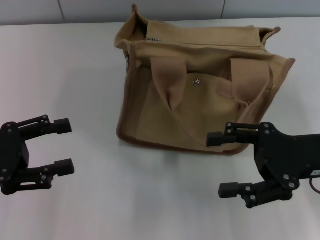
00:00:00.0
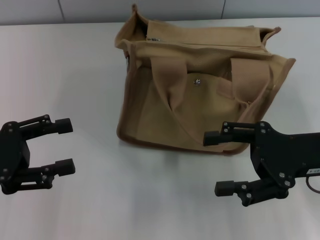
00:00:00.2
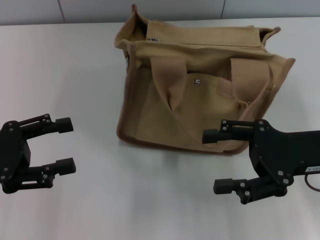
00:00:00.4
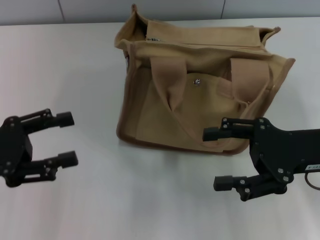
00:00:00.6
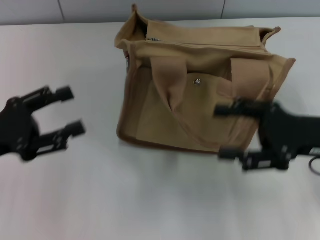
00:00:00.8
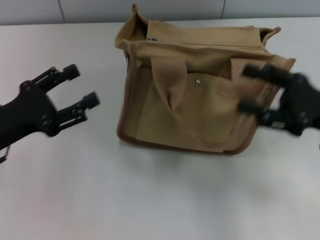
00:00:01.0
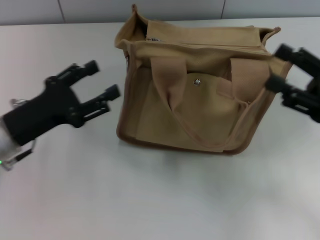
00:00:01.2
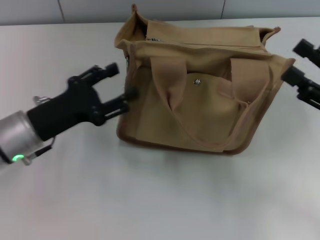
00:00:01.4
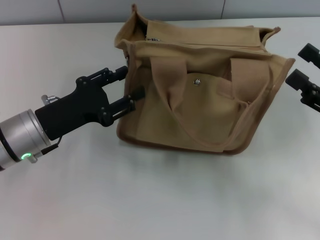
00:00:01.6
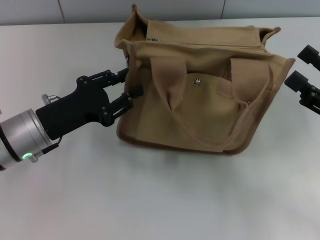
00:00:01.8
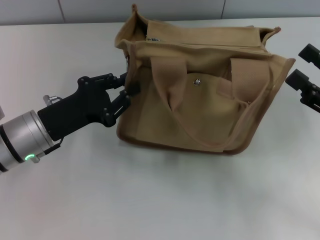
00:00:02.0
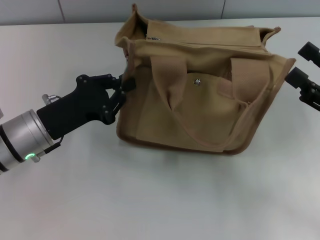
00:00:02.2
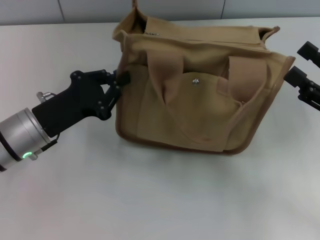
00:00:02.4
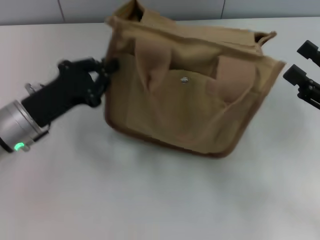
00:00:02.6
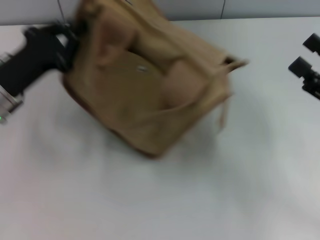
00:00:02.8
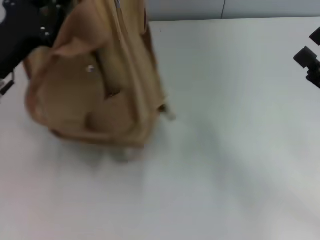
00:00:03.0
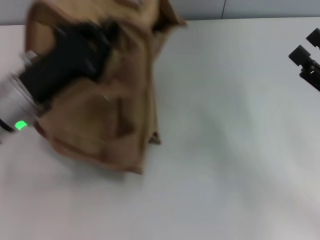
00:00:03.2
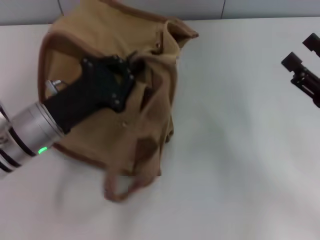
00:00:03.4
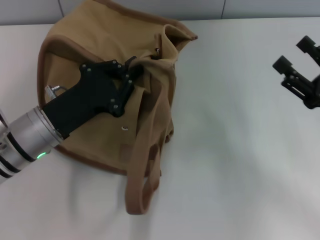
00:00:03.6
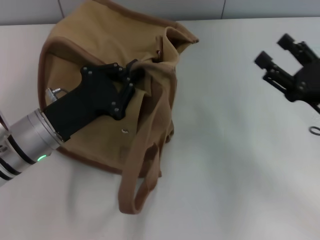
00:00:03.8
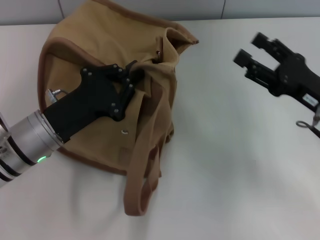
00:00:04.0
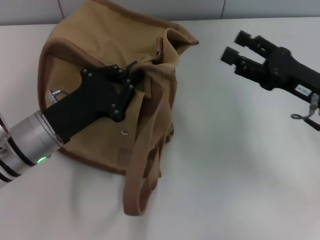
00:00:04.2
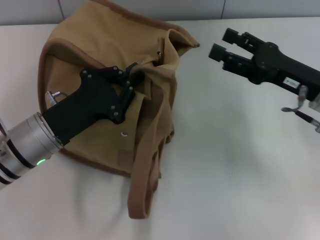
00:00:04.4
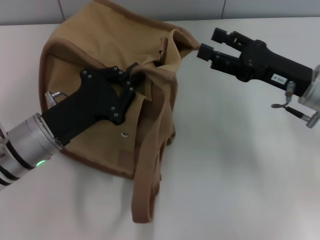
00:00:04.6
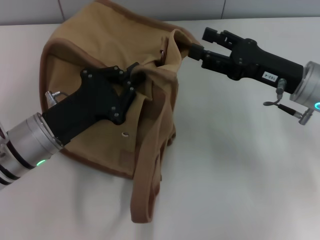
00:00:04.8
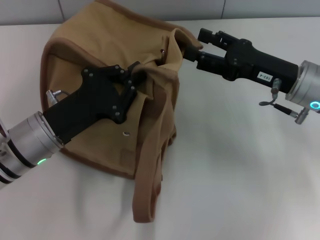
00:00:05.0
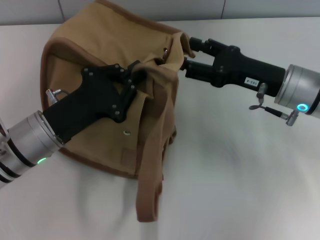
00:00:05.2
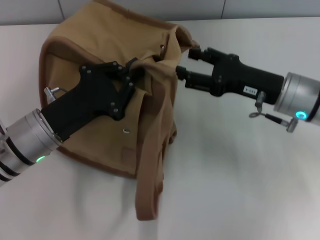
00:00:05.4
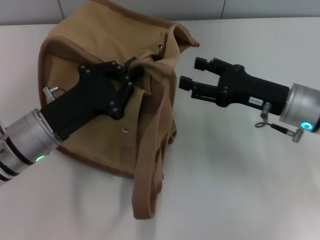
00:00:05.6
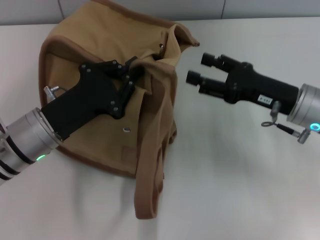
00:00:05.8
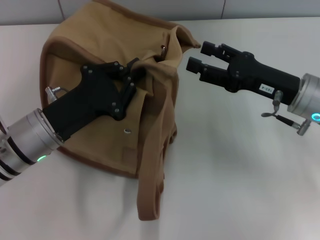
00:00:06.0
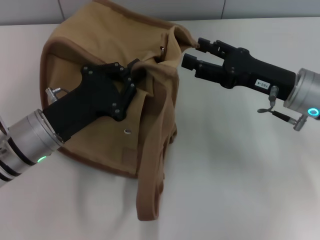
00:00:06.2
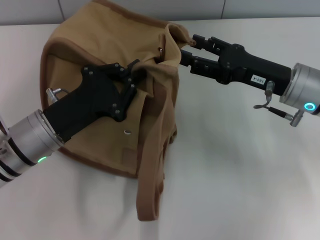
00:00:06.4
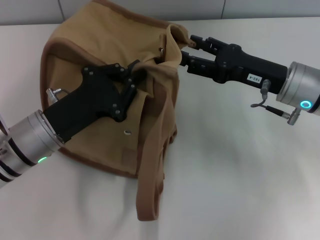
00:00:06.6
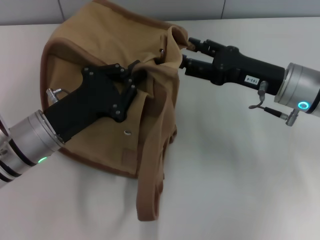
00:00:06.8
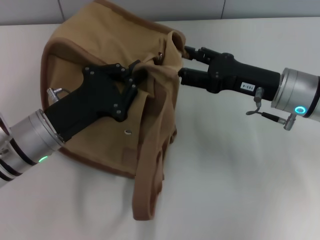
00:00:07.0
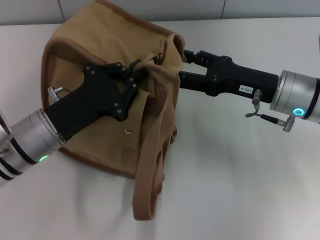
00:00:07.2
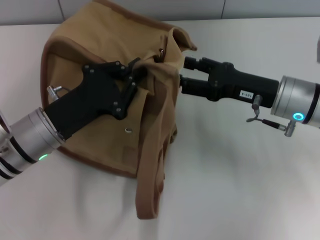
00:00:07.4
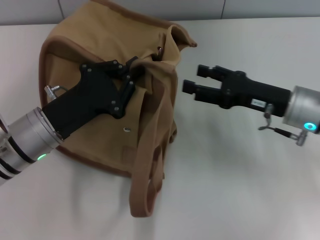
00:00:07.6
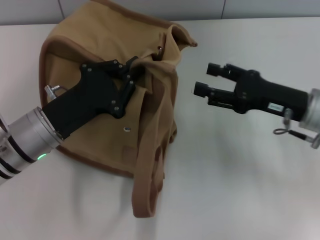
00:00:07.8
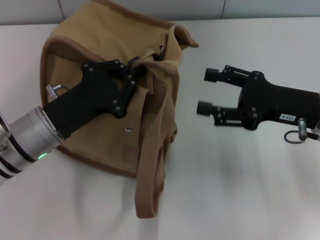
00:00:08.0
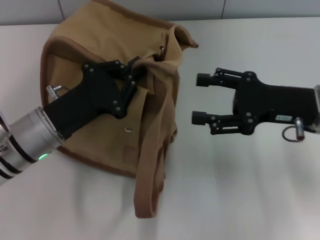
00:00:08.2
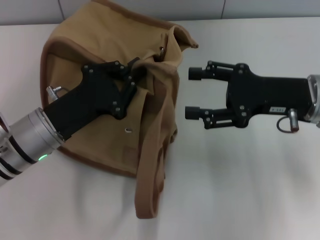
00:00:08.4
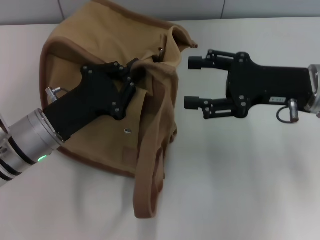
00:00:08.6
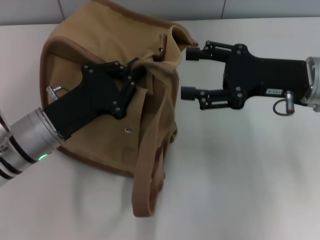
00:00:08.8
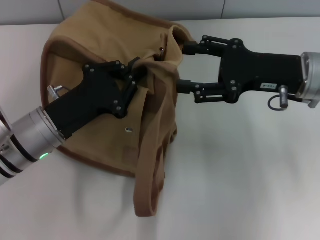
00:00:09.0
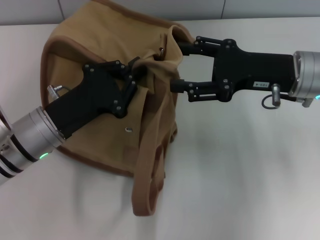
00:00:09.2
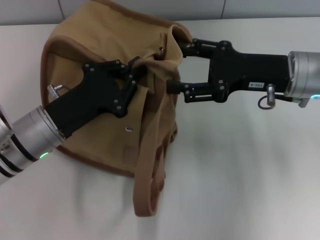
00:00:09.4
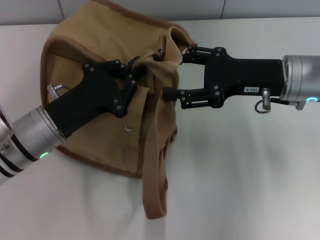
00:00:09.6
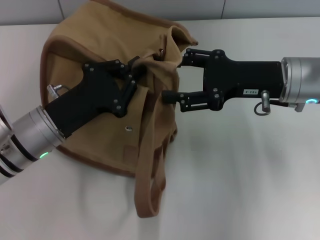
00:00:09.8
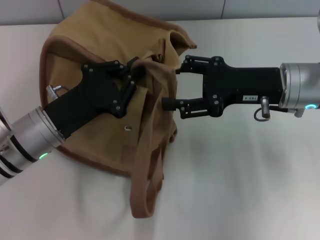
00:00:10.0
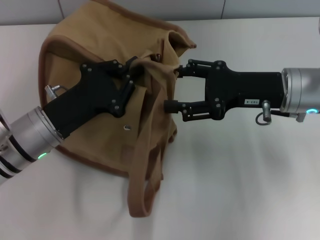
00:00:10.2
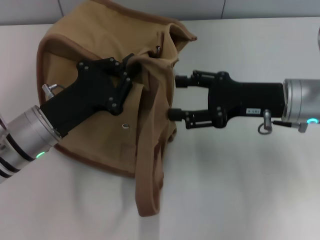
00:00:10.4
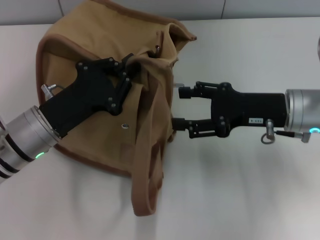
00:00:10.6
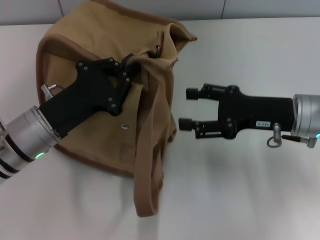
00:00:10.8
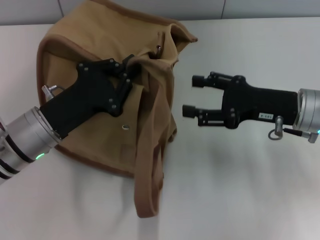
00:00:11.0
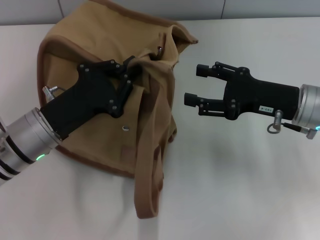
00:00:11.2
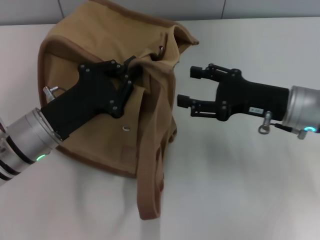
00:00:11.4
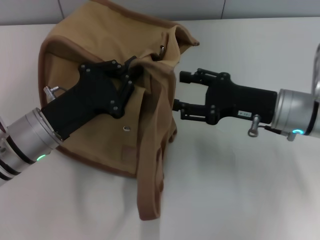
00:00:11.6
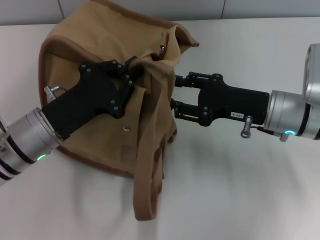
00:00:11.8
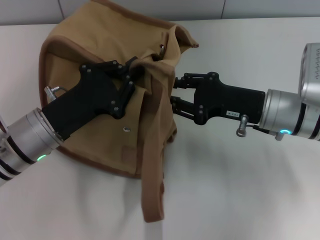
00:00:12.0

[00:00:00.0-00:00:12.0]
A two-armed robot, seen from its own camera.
00:00:00.0 to 00:00:01.6: The right gripper shifts about 5 cm to the right. The left gripper goes approximately 10 cm to the right and forward.
00:00:01.6 to 00:00:03.0: The left gripper goes about 5 cm upward, and closes.
00:00:03.0 to 00:00:04.4: The left gripper heads to the right and downward, covering roughly 10 cm, while the right gripper moves forward and to the left, approximately 10 cm.
00:00:04.4 to 00:00:07.6: The grippers stay close to where they were, moving slightly.
00:00:07.6 to 00:00:09.0: The right gripper moves upward, some 5 cm.
00:00:09.0 to 00:00:10.4: The grippers move only a little.
00:00:10.4 to 00:00:12.0: The grippers stay close to where they were, moving slightly.

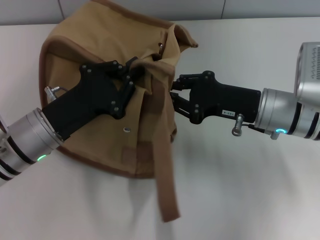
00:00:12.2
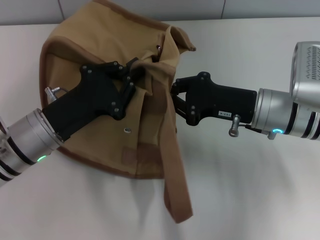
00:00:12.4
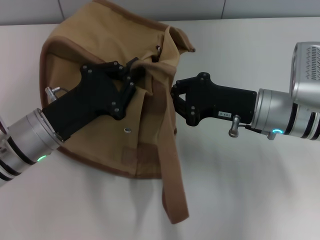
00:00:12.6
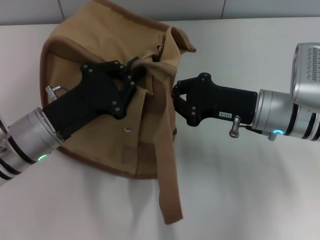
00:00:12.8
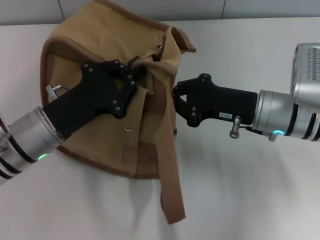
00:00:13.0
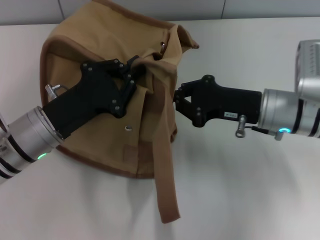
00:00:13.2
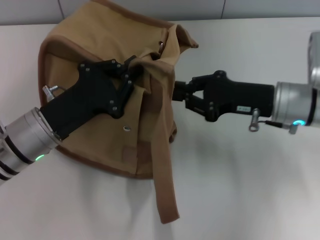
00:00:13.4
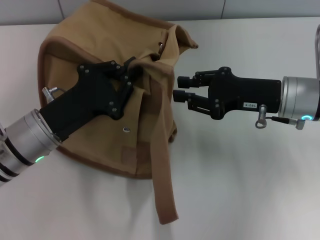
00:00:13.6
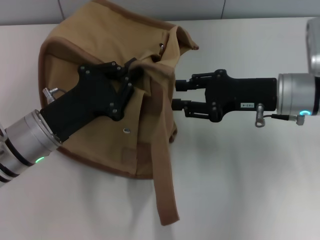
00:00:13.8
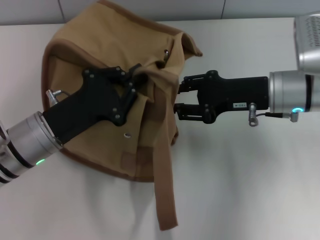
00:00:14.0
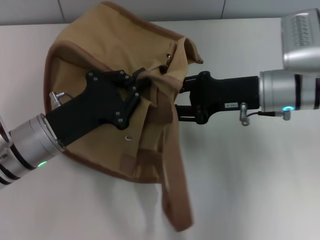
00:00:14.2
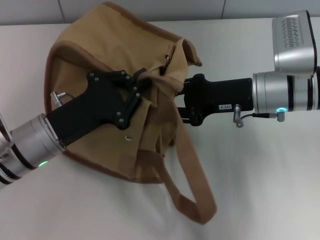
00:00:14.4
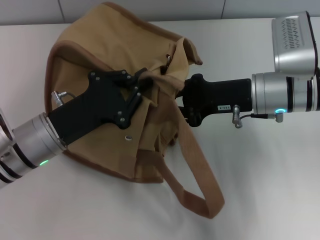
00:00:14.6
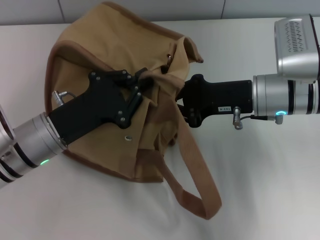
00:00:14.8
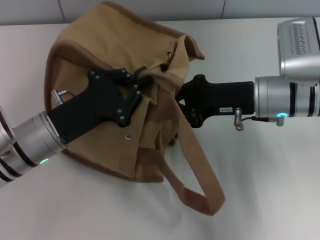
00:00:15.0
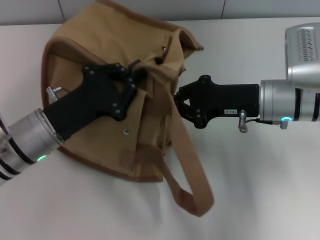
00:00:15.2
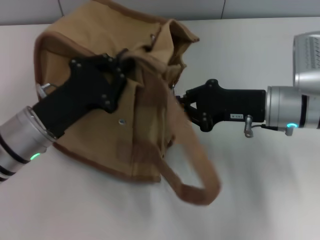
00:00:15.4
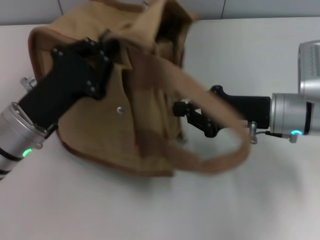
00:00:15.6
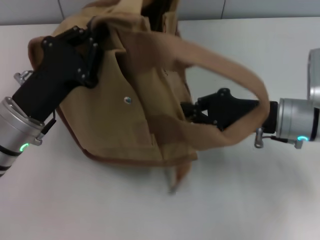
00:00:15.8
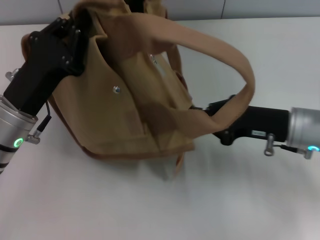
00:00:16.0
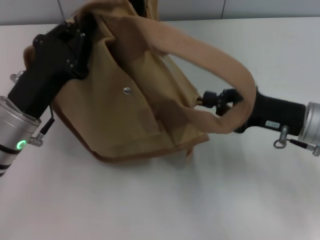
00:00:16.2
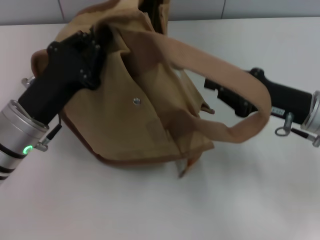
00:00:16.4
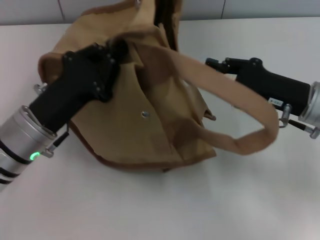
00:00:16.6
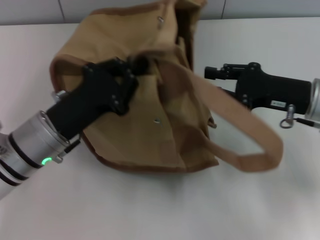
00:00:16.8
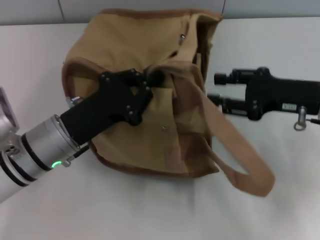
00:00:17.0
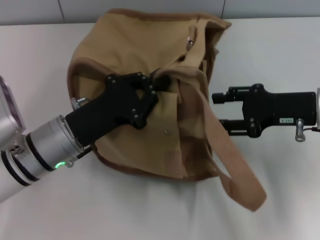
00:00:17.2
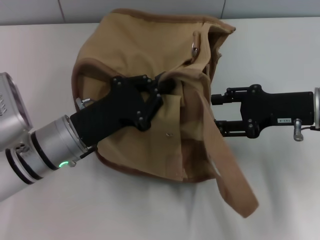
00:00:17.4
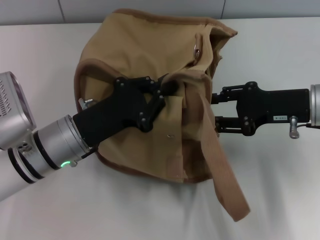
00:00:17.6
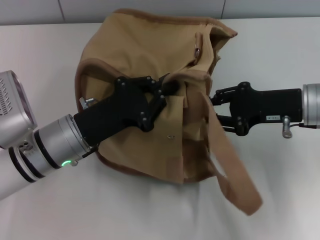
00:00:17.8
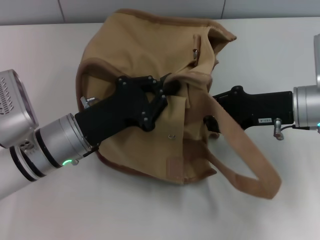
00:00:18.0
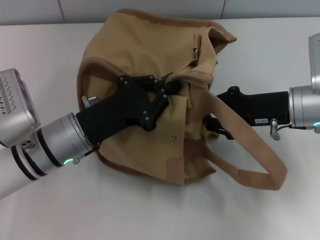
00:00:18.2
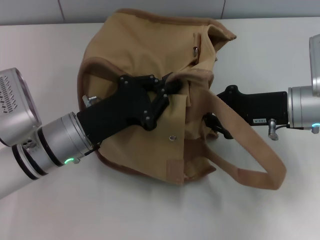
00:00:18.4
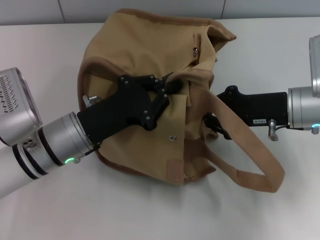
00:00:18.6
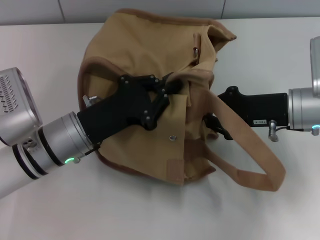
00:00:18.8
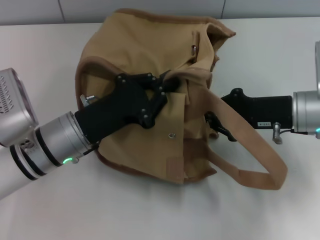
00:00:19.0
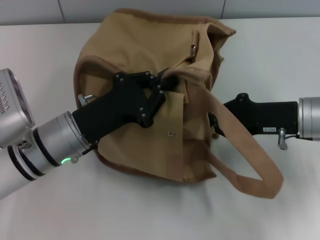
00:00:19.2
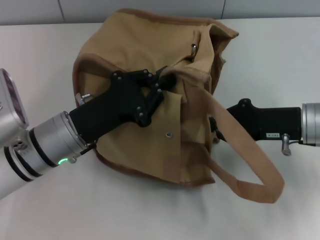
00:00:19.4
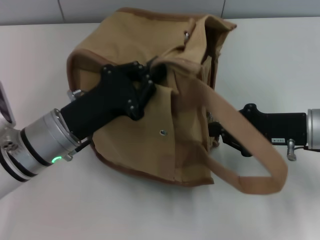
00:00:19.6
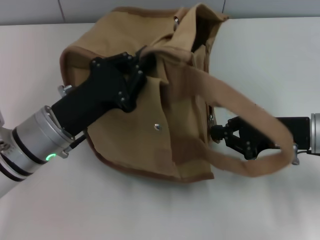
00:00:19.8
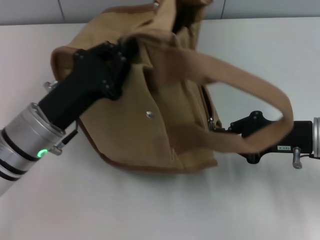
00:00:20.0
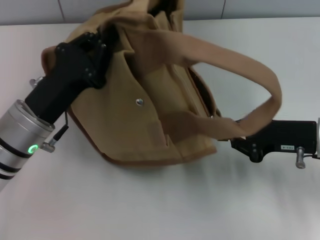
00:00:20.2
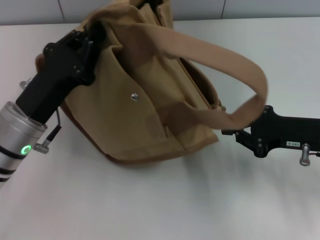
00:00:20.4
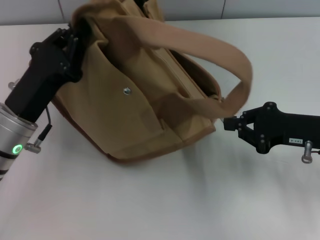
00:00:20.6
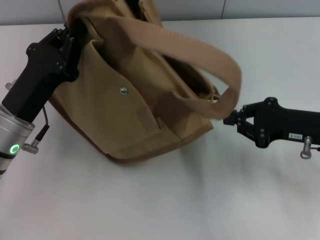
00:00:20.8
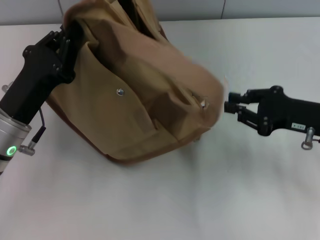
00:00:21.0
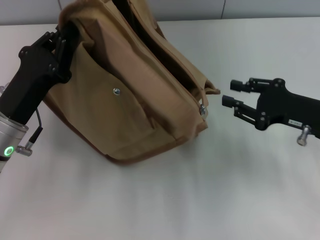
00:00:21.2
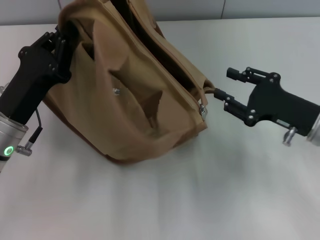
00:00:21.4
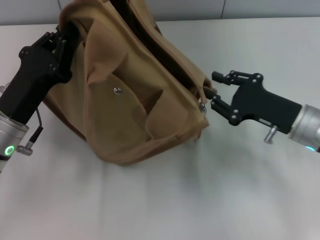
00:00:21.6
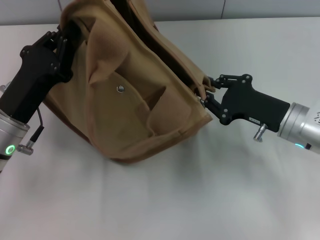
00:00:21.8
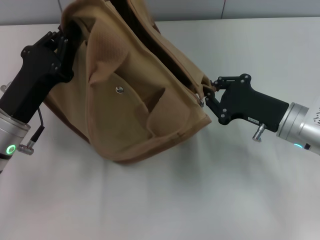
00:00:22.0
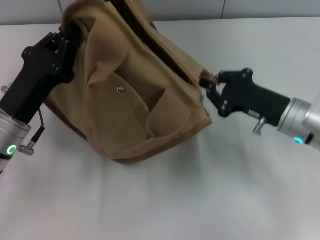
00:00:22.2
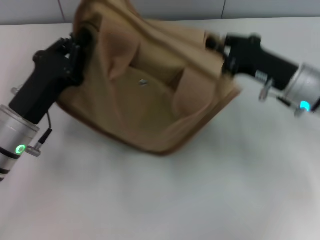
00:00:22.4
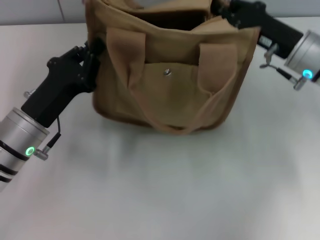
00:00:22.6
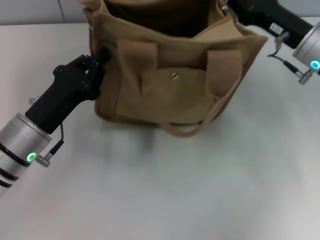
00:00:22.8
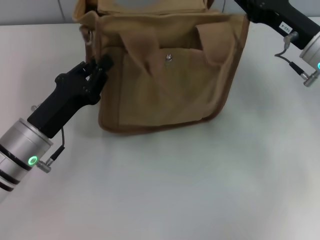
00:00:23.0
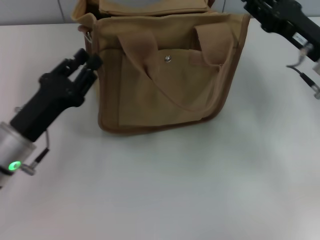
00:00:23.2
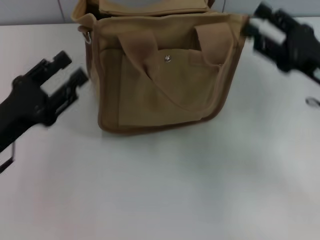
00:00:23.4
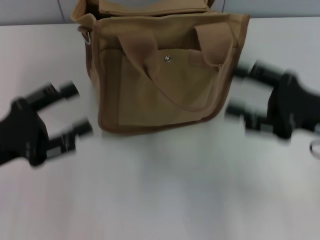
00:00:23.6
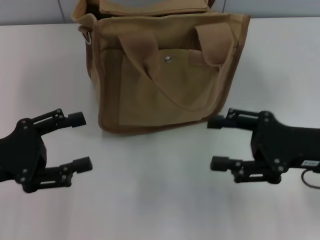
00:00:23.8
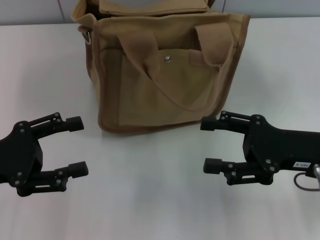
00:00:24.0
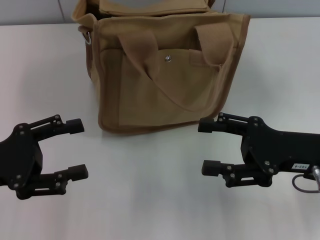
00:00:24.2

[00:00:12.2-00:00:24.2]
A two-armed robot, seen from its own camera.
Step, 00:00:12.2 to 00:00:21.0: Pull open the zipper with your right hand.
Step, 00:00:21.2 to 00:00:23.2: Grab the bag with your left hand.
00:00:12.2 to 00:00:15.2: The grippers stay close to where they were, moving slightly.
00:00:15.2 to 00:00:16.6: The right gripper is displaced to the right by some 5 cm.
00:00:16.6 to 00:00:18.2: The right gripper opens, then closes once more.
00:00:18.2 to 00:00:19.8: The right gripper ends up approximately 5 cm from where it was.
00:00:21.2 to 00:00:22.6: The right gripper is displaced forward and to the left by approximately 10 cm, and opens, then closes again.
00:00:22.6 to 00:00:24.2: The right gripper moves backward, some 10 cm, and opens its fingers. Meanwhile the left gripper goes some 10 cm to the left, and opens up.
